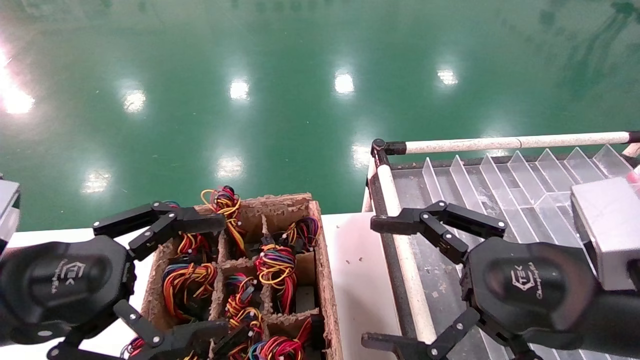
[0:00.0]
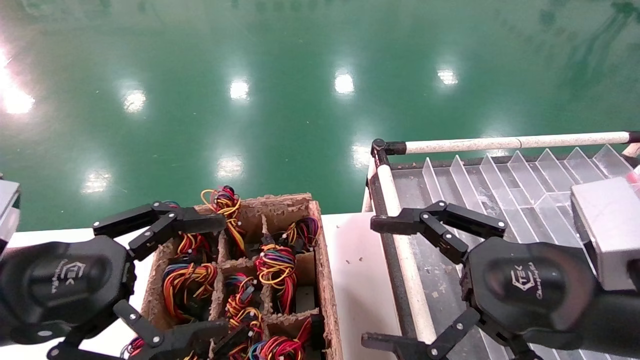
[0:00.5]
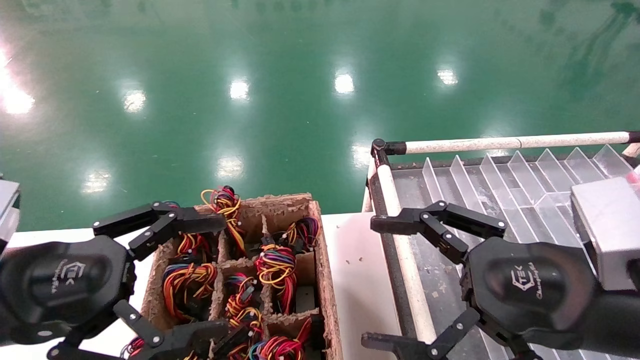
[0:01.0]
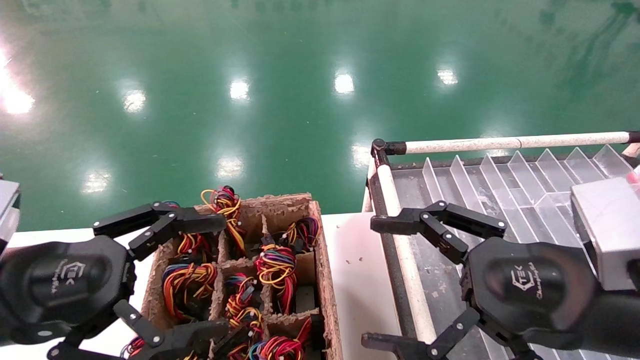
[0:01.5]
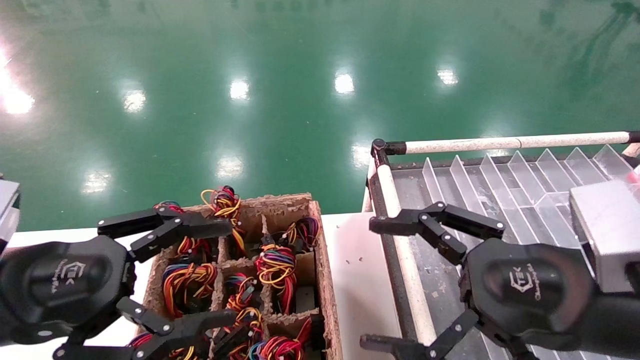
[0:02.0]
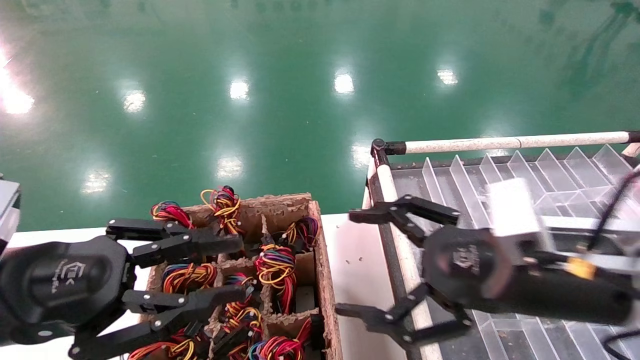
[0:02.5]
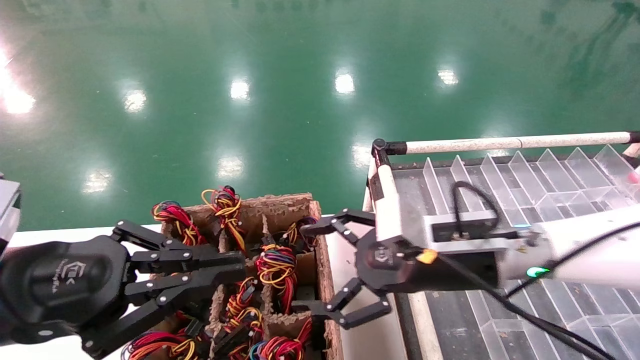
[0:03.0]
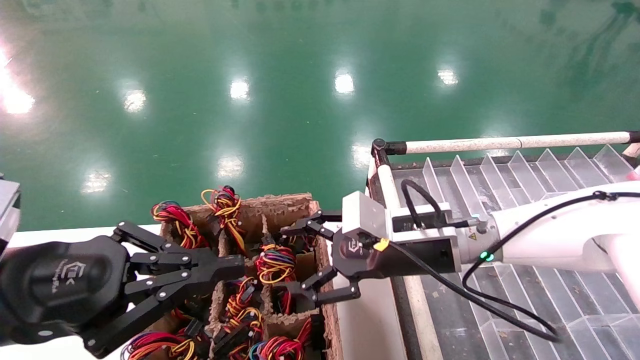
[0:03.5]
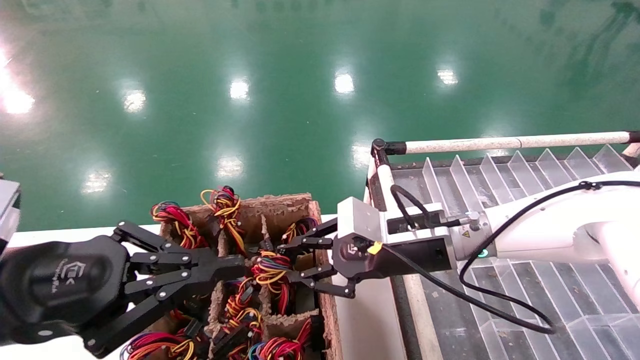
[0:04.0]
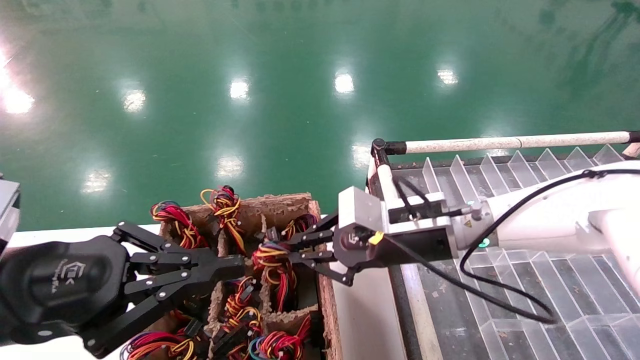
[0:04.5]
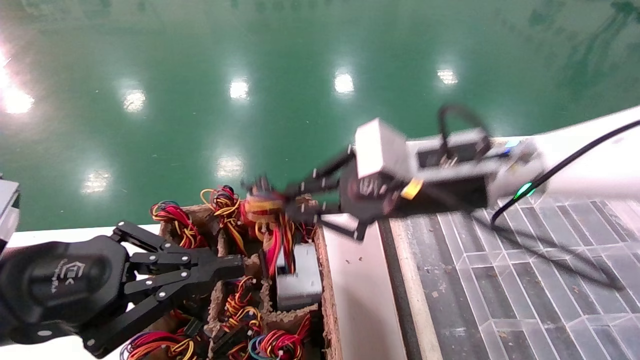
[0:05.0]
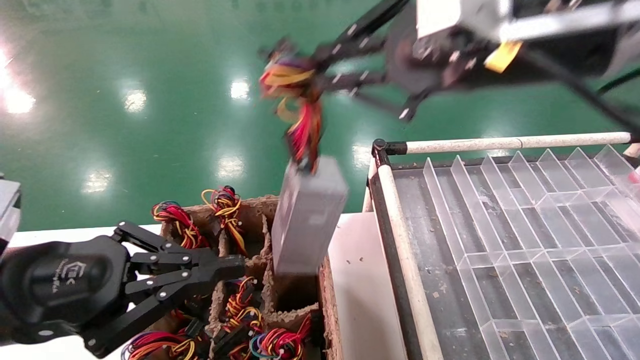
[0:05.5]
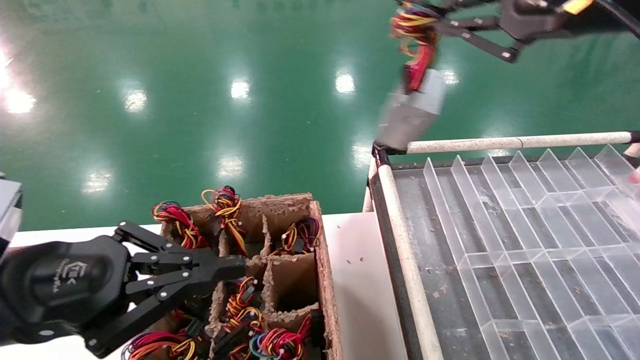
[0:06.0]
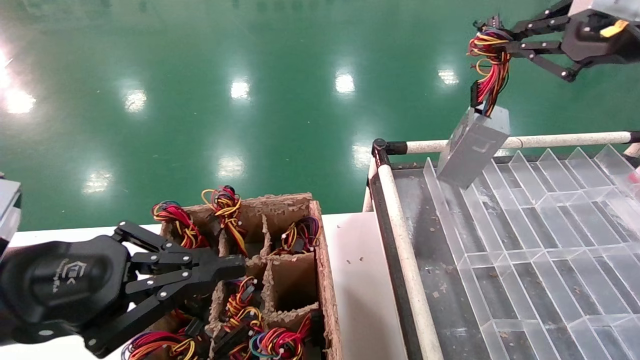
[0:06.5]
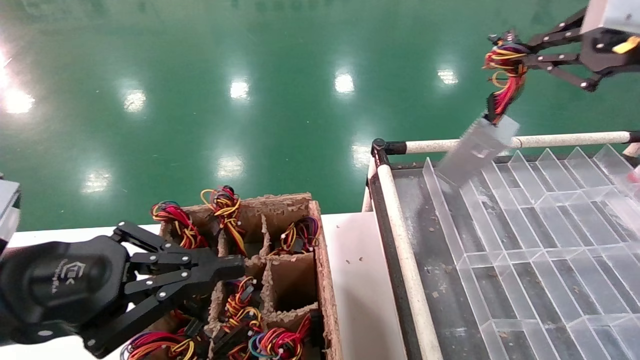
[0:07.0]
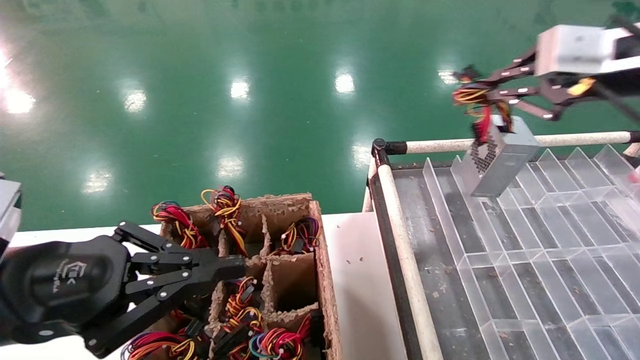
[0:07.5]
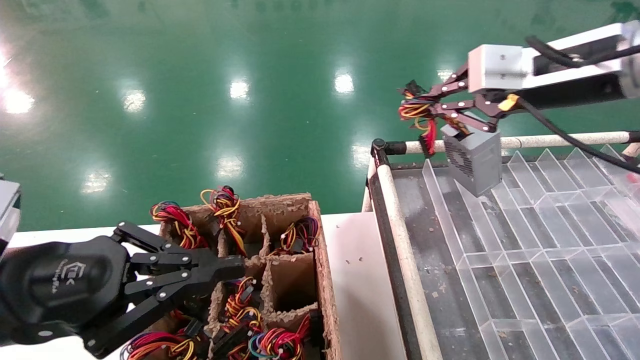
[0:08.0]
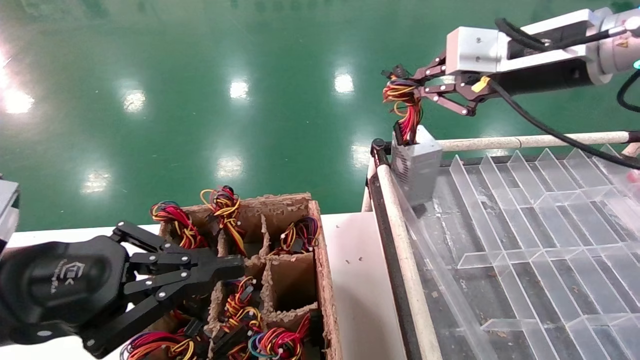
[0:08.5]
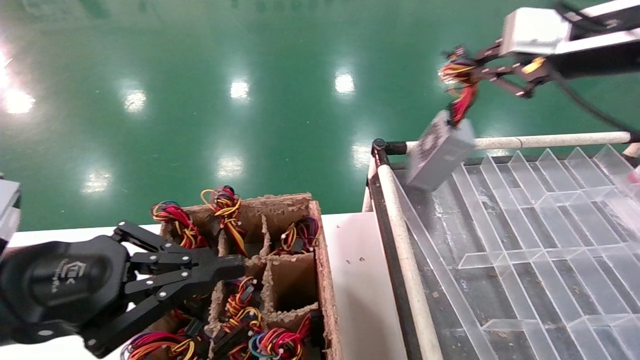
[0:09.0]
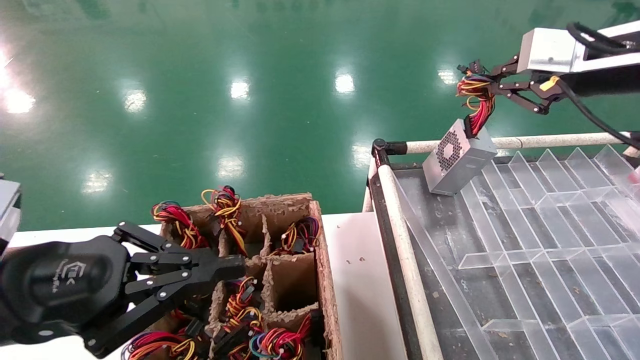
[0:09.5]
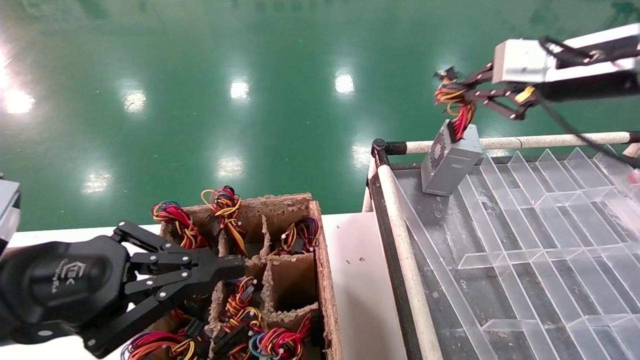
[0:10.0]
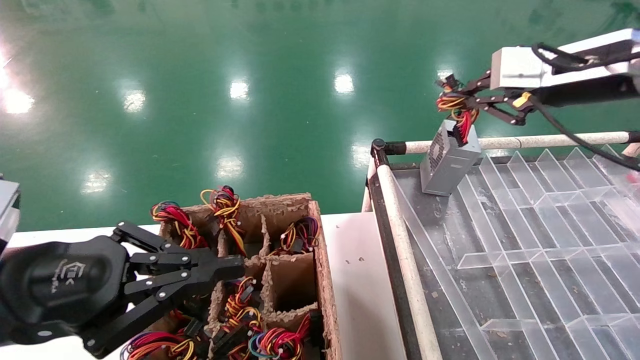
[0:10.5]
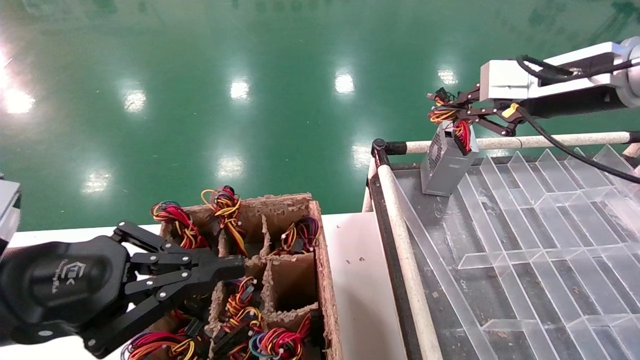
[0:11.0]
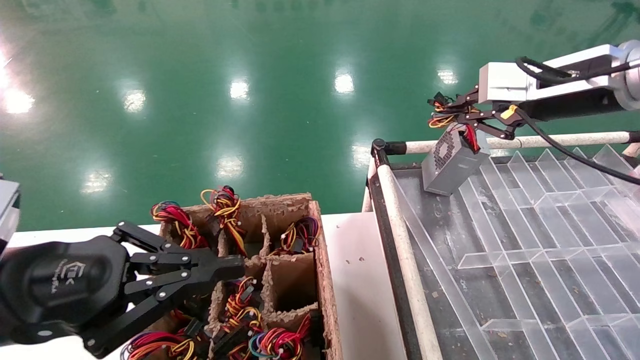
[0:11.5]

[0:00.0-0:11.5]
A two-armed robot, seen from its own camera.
Step, 0:02.5 to 0:04.0: Grab the main unit power supply from the containment box.
0:00.0 to 0:02.0: Neither gripper changes place.
0:02.0 to 0:04.0: The right gripper travels forward and to the left by roughly 20 cm, and closes. Meanwhile the left gripper closes its fingers.
0:04.0 to 0:06.0: The right gripper is displaced upward and to the right by roughly 30 cm, and closes up.
0:06.0 to 0:07.5: The right gripper shifts approximately 5 cm to the right.
0:09.5 to 0:11.5: There are only small adjustments of the grippers.

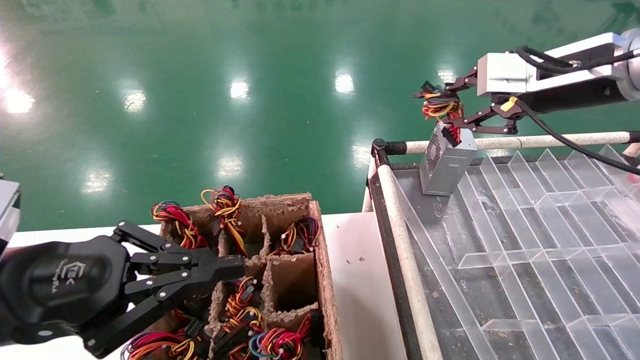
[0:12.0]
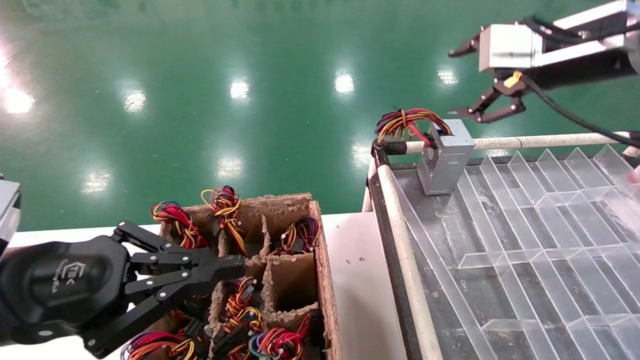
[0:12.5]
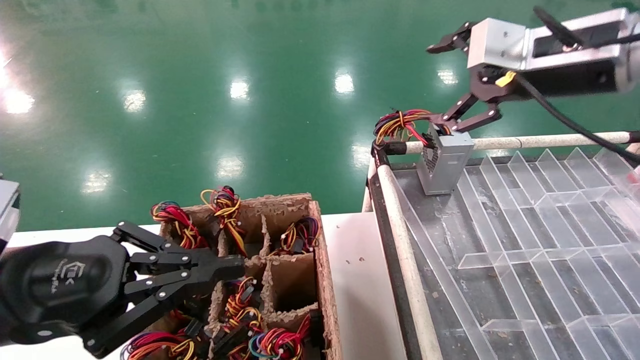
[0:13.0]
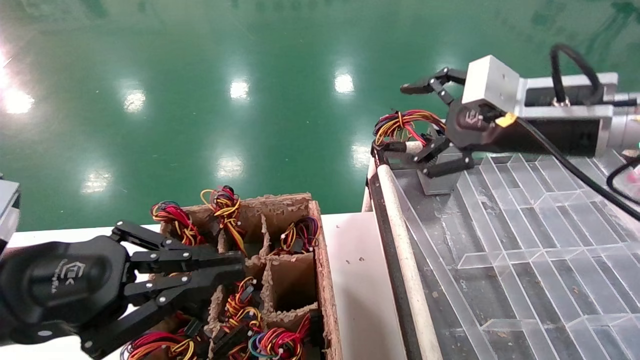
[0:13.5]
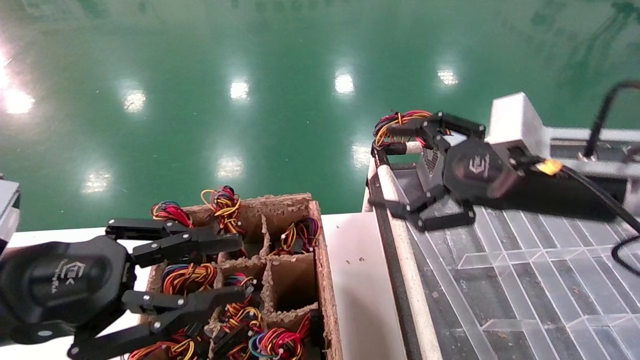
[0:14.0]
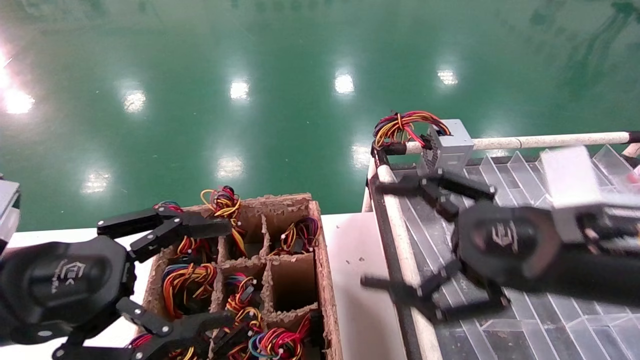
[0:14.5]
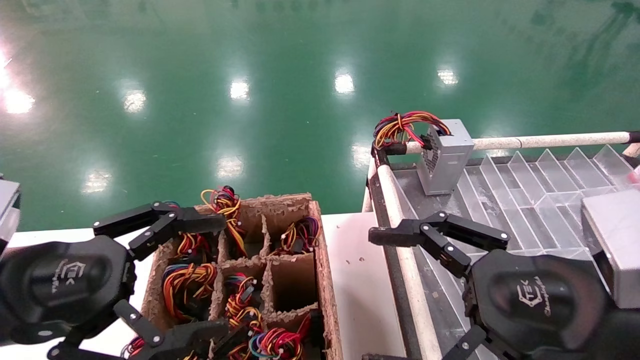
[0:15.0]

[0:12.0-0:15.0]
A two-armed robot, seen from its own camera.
0:12.0 to 0:13.5: The right gripper travels downward by some 5 cm, and opens its fingers.
0:13.5 to 0:15.0: The right gripper heads backward and downward, covering approximately 20 cm; the left gripper opens up.
